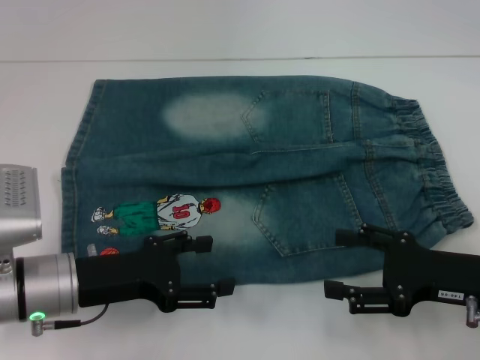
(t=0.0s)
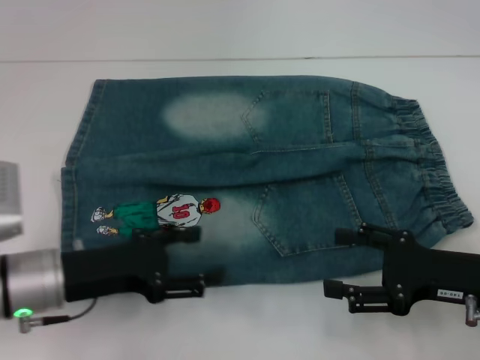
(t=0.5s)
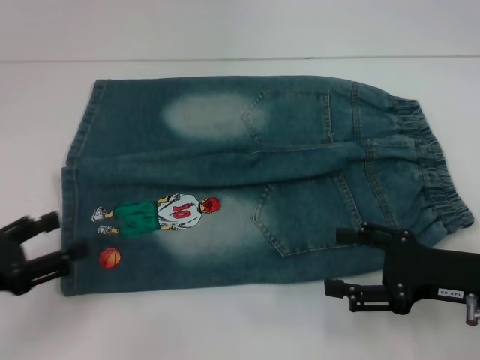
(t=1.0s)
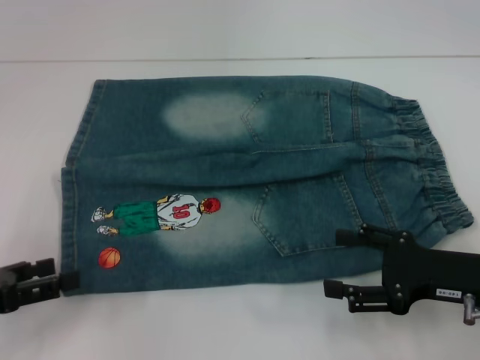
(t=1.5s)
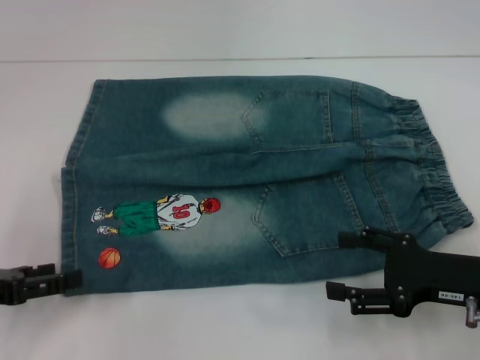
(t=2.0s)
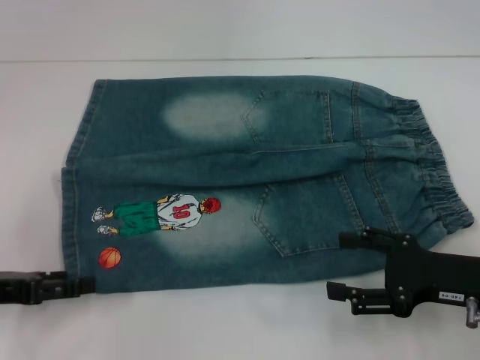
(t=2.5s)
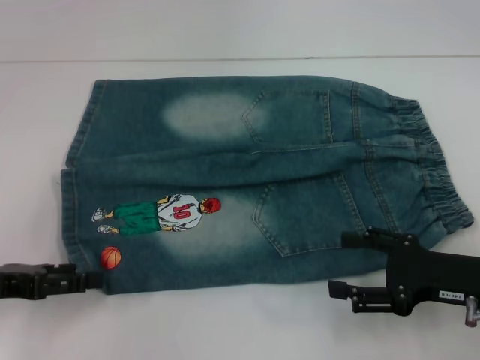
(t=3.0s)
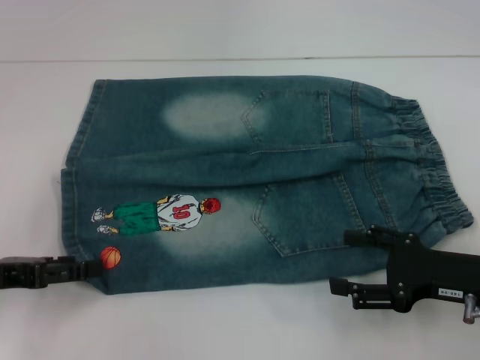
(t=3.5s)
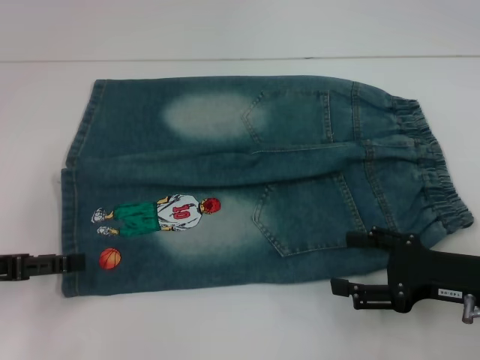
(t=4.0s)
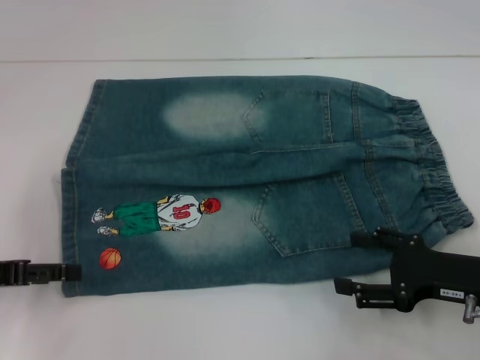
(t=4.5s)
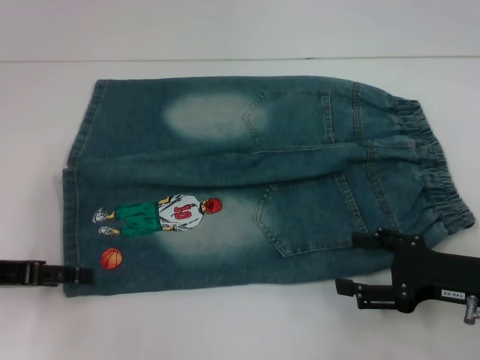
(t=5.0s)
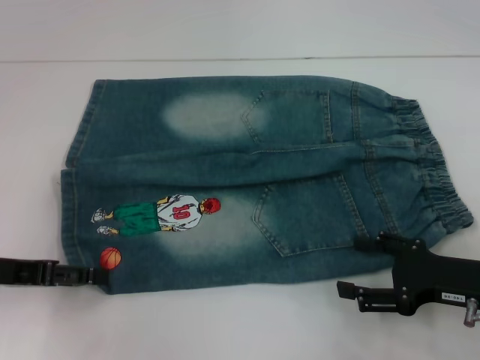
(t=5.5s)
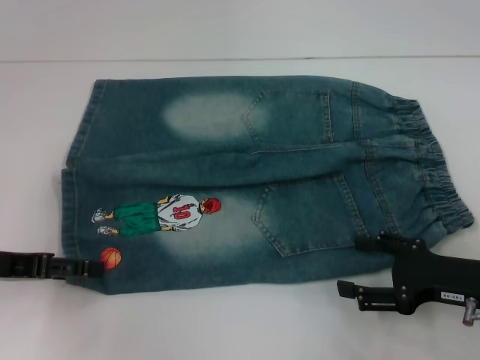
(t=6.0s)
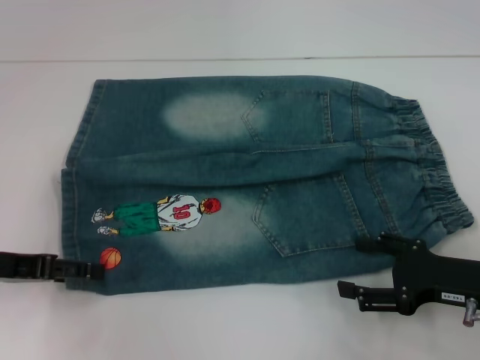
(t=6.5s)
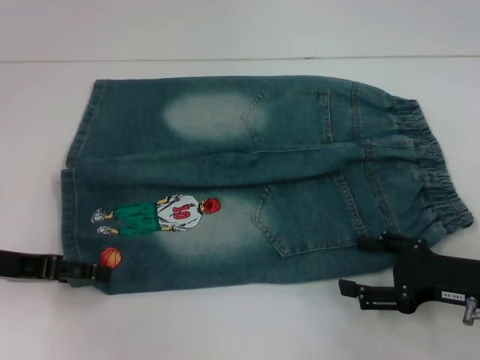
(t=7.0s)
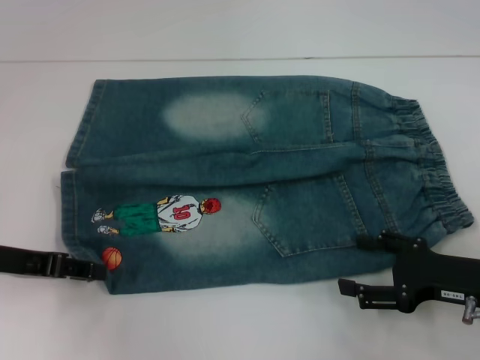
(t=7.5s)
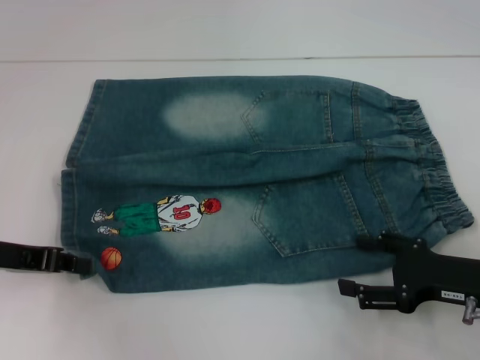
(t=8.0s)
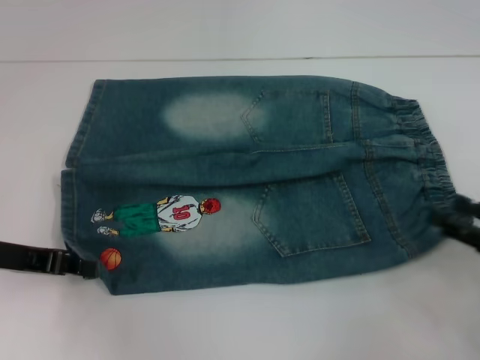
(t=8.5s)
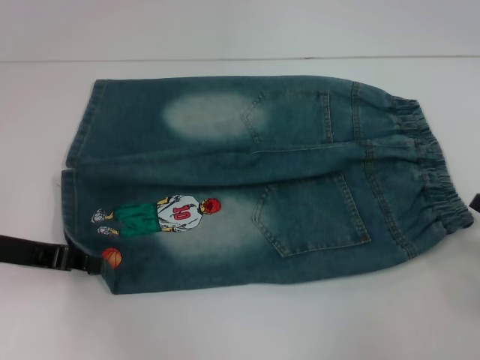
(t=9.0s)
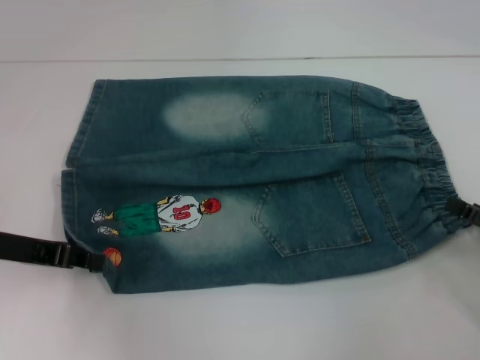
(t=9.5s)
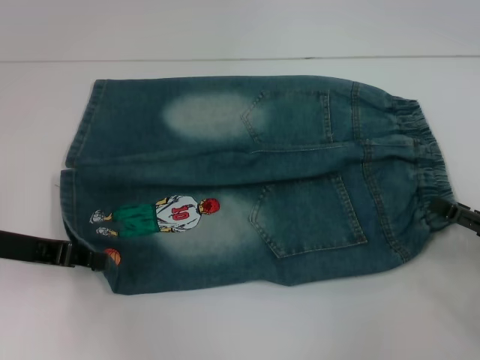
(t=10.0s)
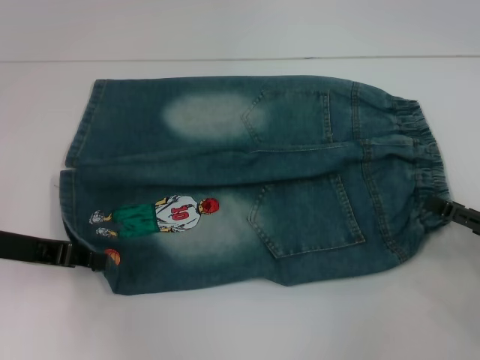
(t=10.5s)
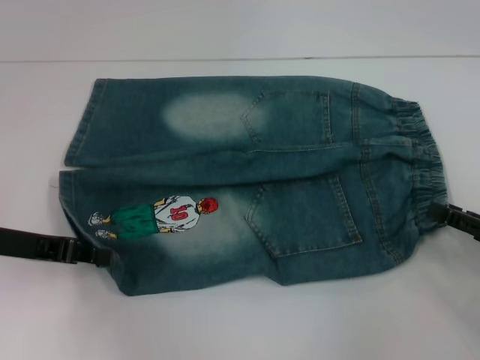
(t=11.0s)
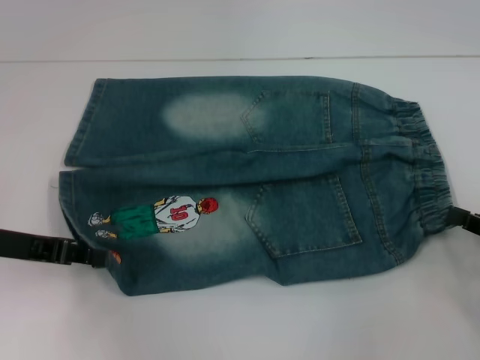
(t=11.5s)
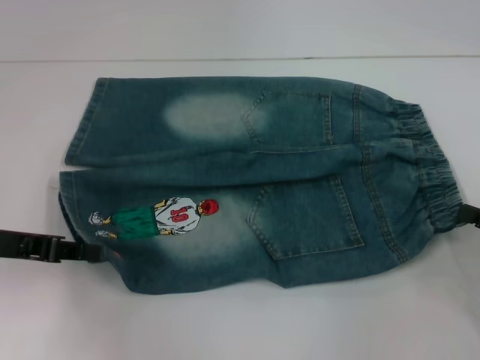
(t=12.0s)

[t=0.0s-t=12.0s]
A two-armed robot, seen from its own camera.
Step, t=0.0s to t=7.5s: Grab the lower left pant leg with your left hand.
t=0.0s to t=2.0s: The left gripper shifts some 15 cm to the left.
t=2.0s to t=6.0s: The grippers stay close to where they were, moving slightly.
t=6.0s to t=8.0s: The left gripper closes up.
t=8.0s to t=10.0s: The right gripper shifts some 5 cm to the right.
t=10.0s to t=12.0s: The right gripper closes its fingers.

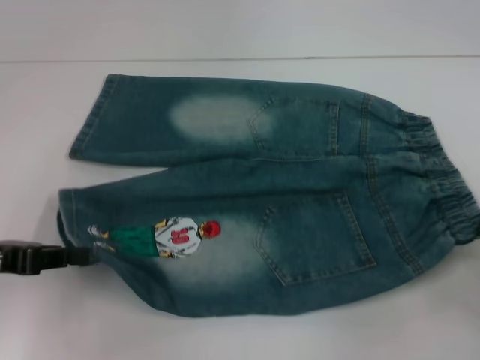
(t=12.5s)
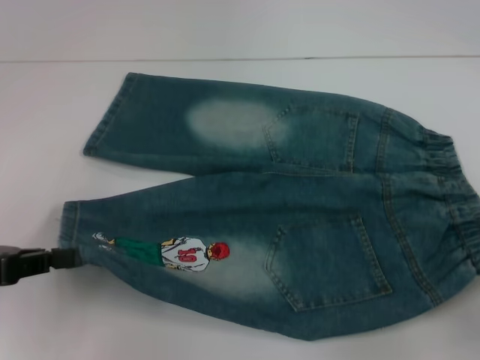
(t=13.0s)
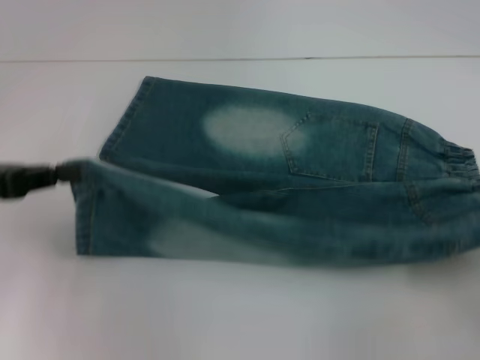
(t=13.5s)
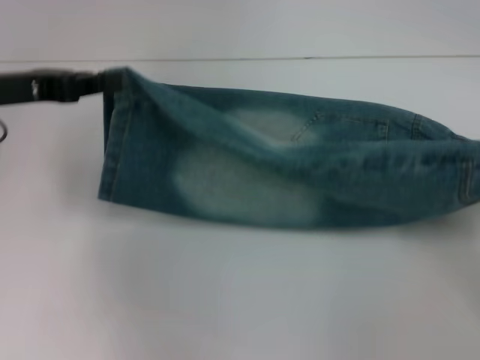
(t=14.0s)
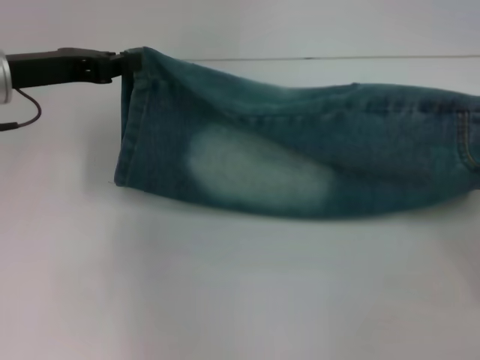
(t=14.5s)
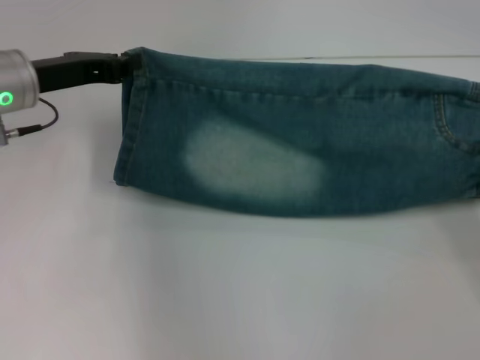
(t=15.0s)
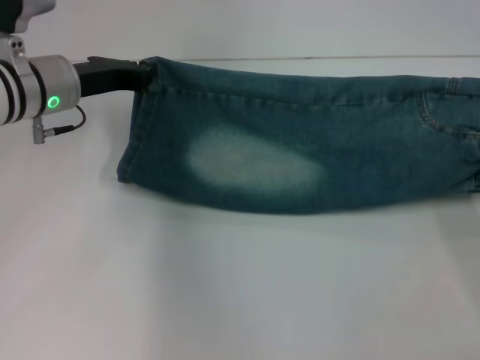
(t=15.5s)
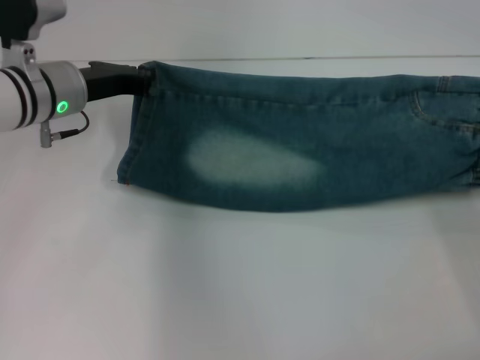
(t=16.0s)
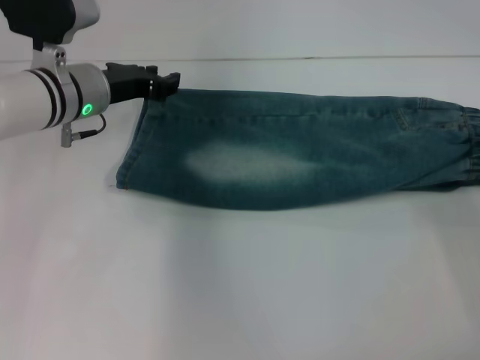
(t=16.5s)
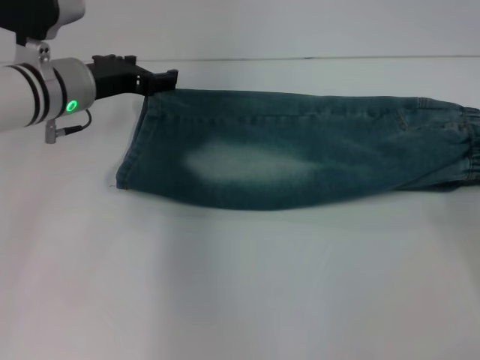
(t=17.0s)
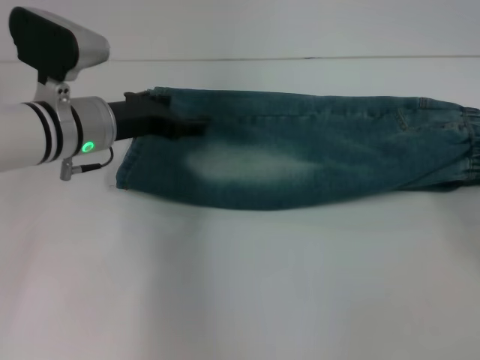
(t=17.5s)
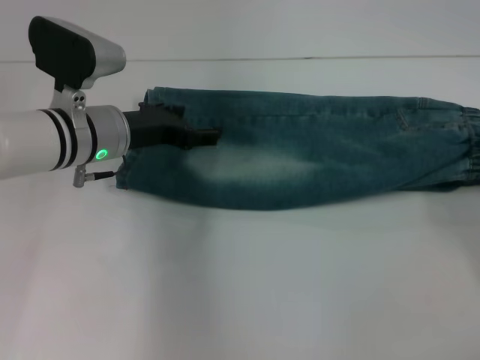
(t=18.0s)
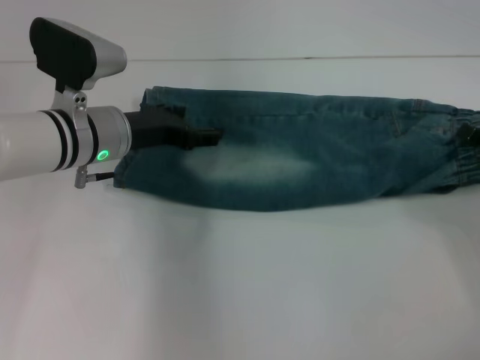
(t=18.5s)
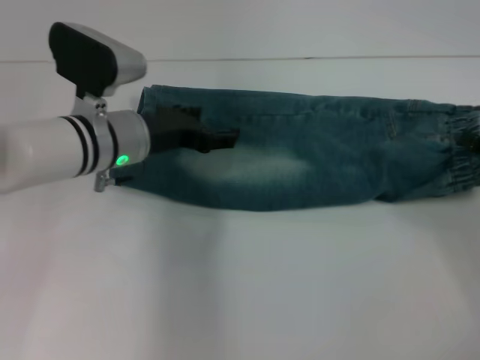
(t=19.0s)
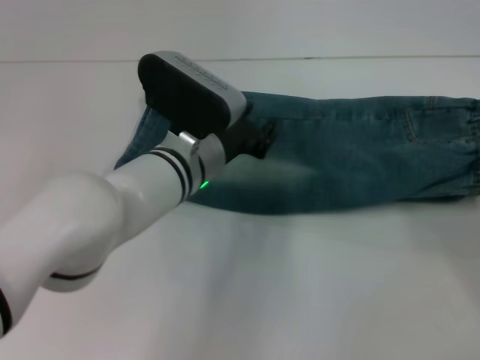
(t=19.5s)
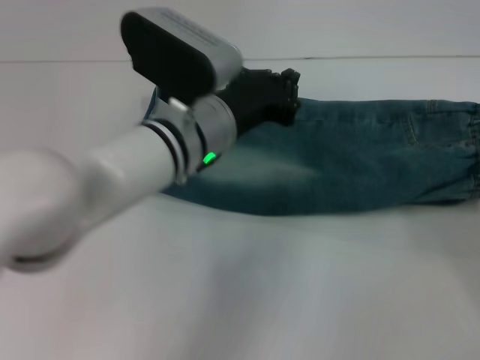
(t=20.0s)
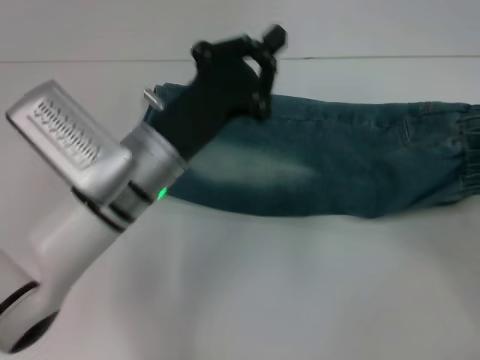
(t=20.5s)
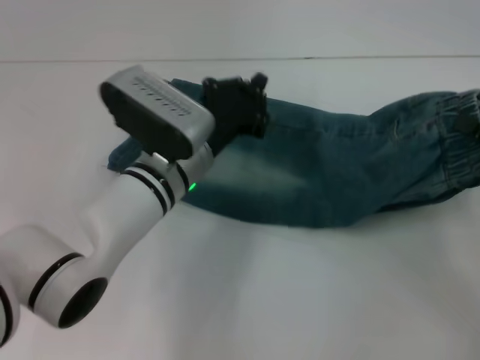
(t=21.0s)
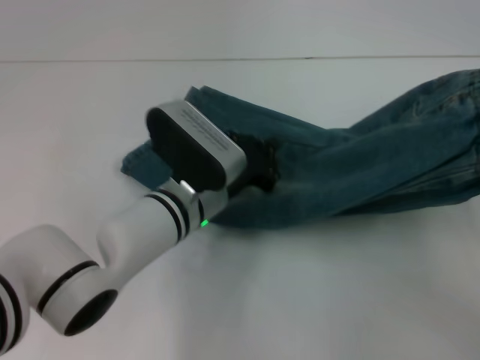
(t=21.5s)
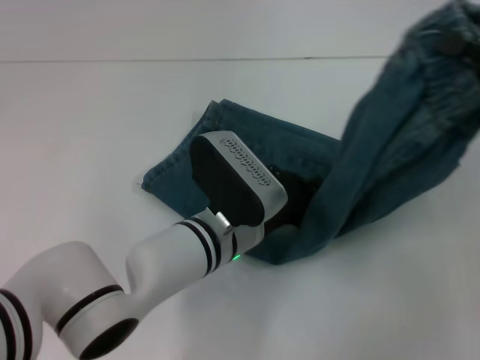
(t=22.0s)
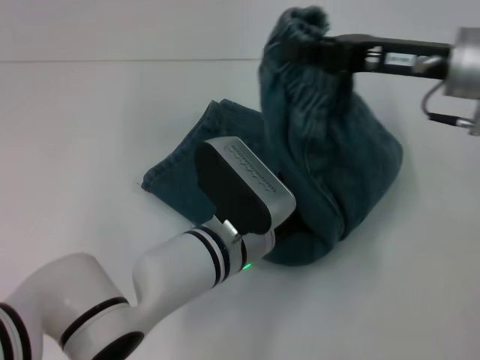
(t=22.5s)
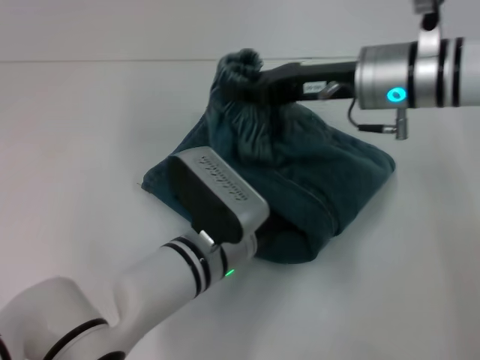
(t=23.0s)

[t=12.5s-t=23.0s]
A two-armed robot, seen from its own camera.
Step, t=12.5s to t=17.0s: Fold upward with your right hand.
Step, t=17.5s to t=19.0s: Grab the waistband with your right hand.
t=12.5s to t=14.5s: The left gripper heads forward, to the right and upward, covering about 15 cm.
t=14.5s to t=16.5s: The left gripper goes about 10 cm to the right and downward; the right gripper moves forward, about 10 cm, and opens its fingers.
t=16.5s to t=19.0s: The left gripper shifts by approximately 5 cm, and opens its fingers, while the right gripper opens, then closes once more.
t=19.0s to t=21.0s: The left gripper heads to the right, covering some 5 cm, and closes its fingers, while the right gripper shifts by approximately 5 cm.
t=21.0s to t=23.0s: The left gripper heads backward, covering some 5 cm, while the right gripper goes about 25 cm to the left and forward.

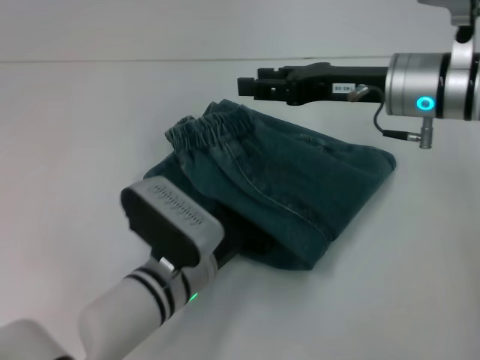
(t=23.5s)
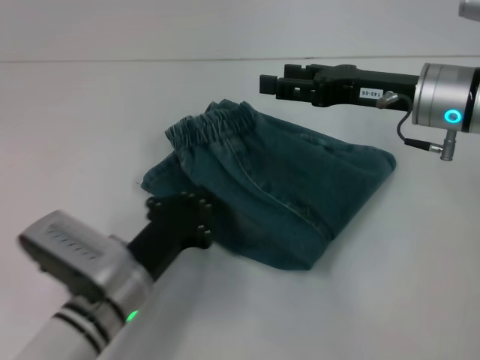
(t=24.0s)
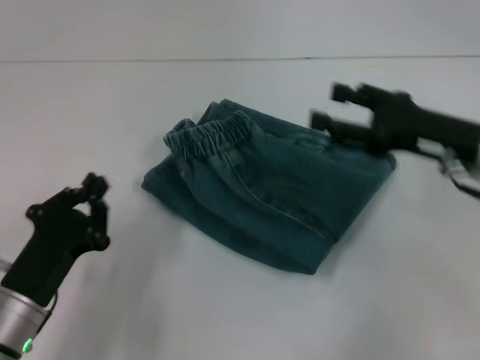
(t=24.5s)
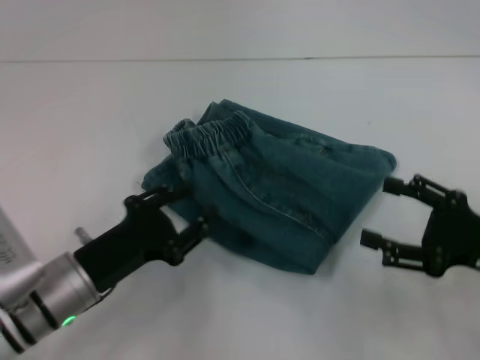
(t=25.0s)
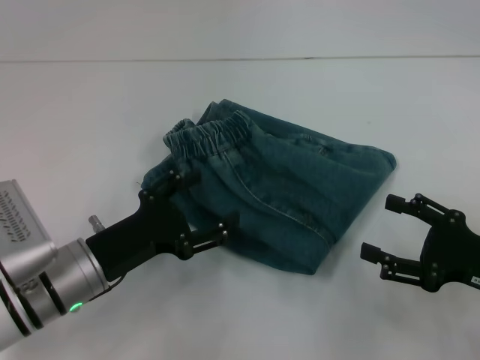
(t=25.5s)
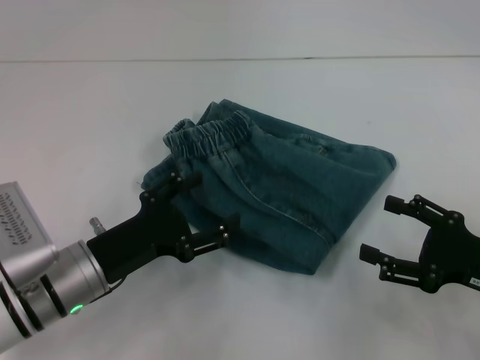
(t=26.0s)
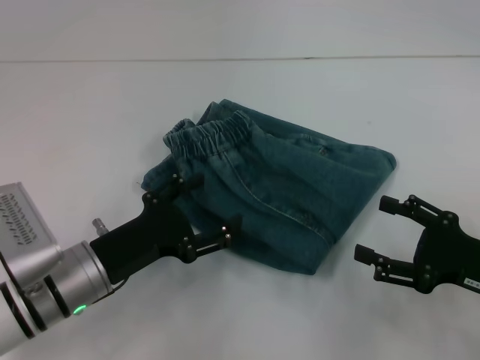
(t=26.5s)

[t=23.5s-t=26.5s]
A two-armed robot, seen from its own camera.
Step, t=23.5s to t=24.0s: Fold to the left with your right hand.
t=23.5s to t=25.0s: The left gripper shifts roughly 10 cm to the left. The right gripper heads backward, to the right and downward, covering some 20 cm, and opens up.
t=25.0s to t=26.5s: The left gripper opens.
